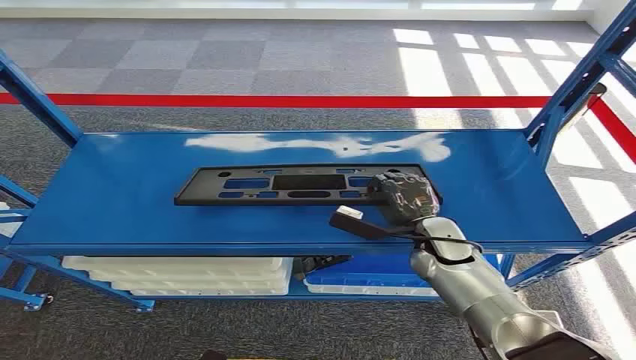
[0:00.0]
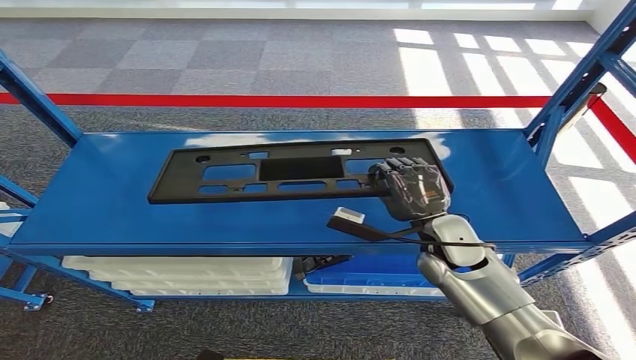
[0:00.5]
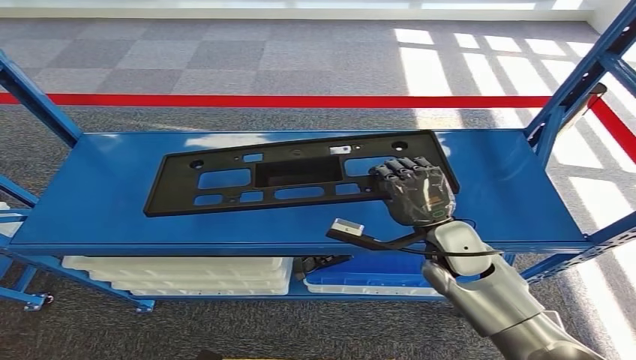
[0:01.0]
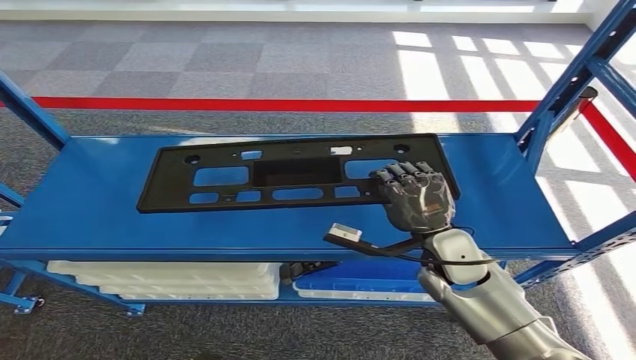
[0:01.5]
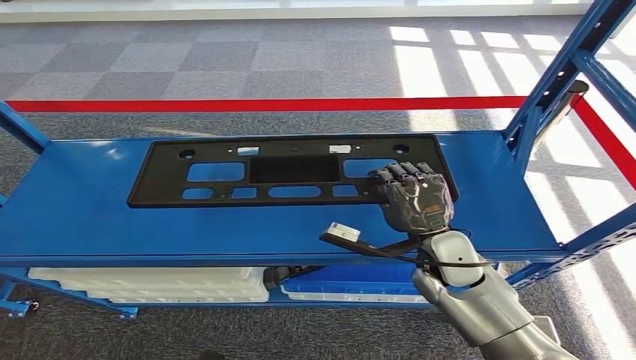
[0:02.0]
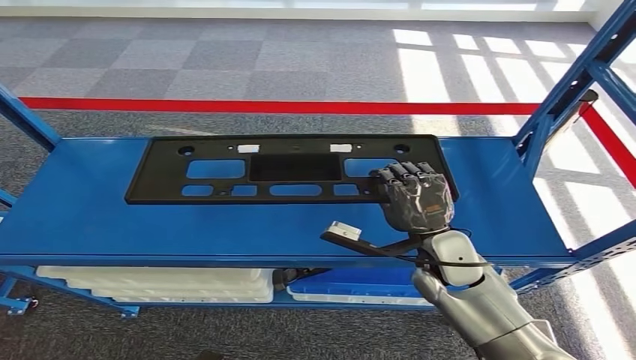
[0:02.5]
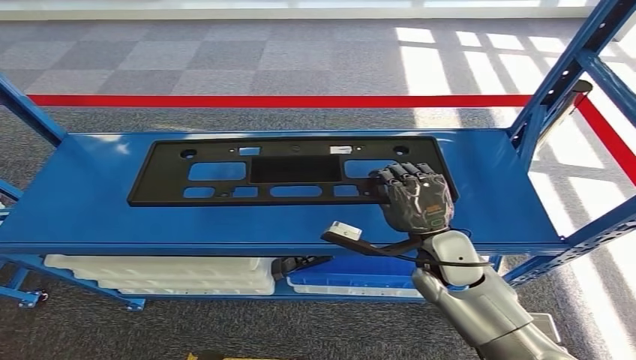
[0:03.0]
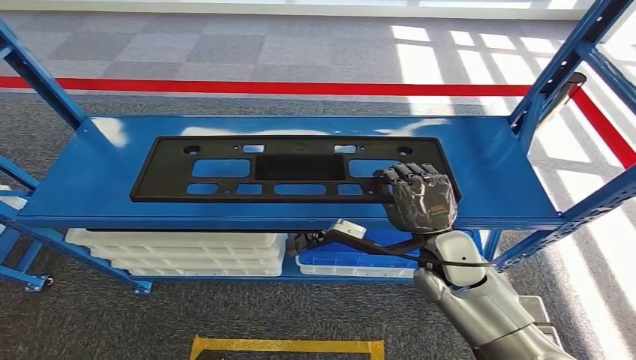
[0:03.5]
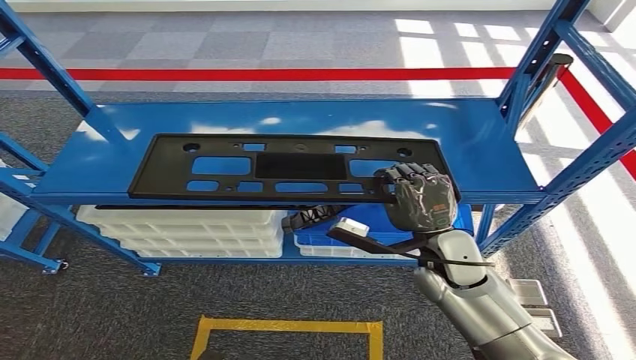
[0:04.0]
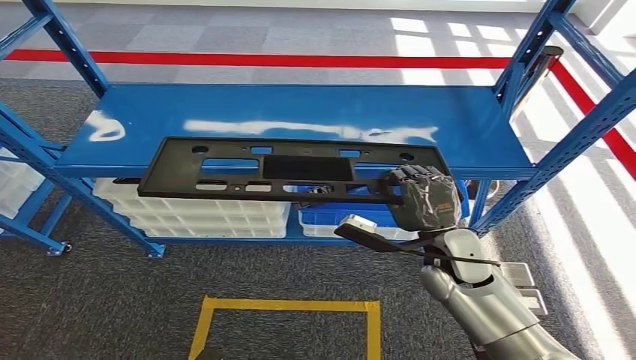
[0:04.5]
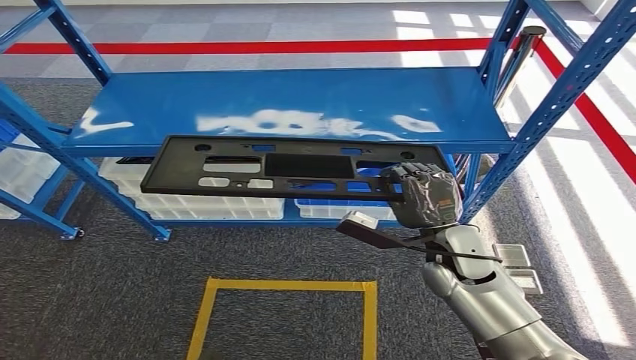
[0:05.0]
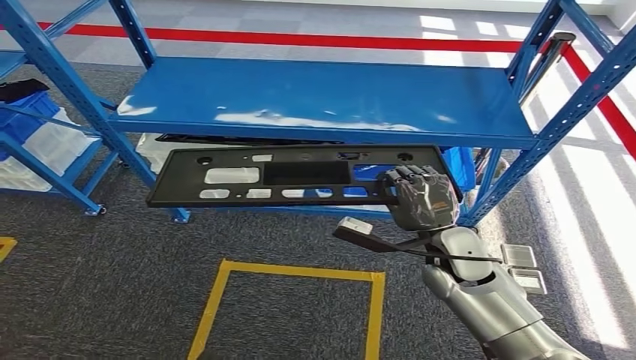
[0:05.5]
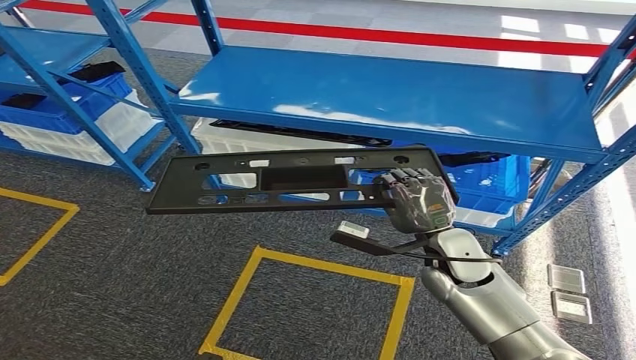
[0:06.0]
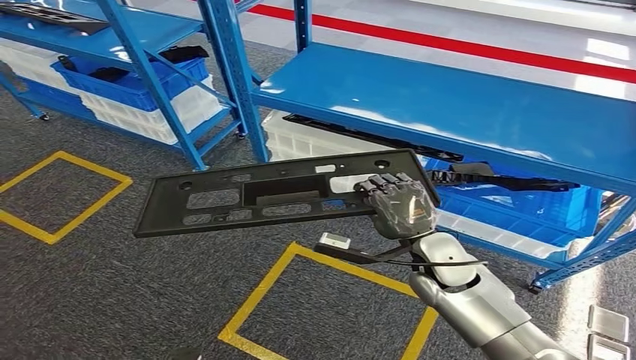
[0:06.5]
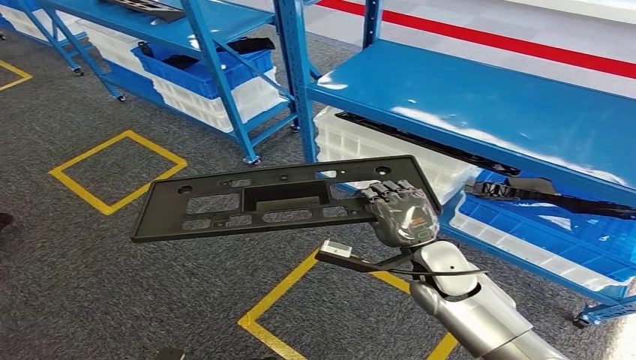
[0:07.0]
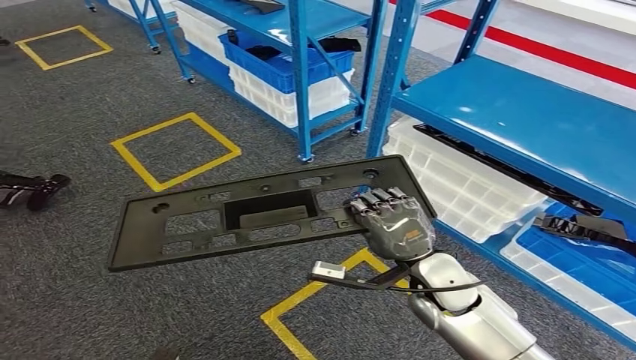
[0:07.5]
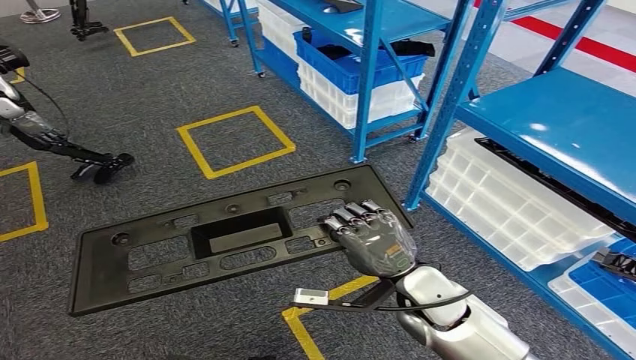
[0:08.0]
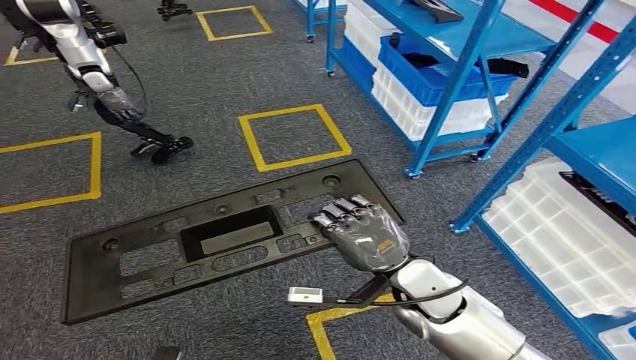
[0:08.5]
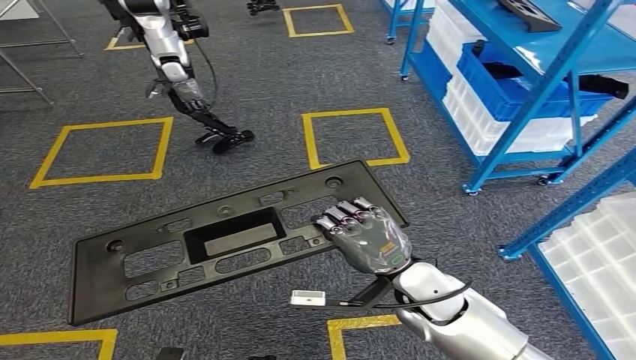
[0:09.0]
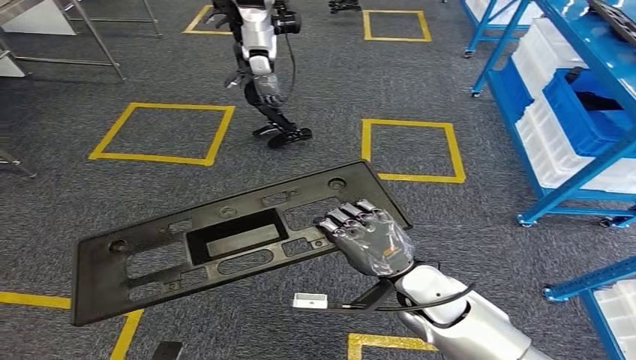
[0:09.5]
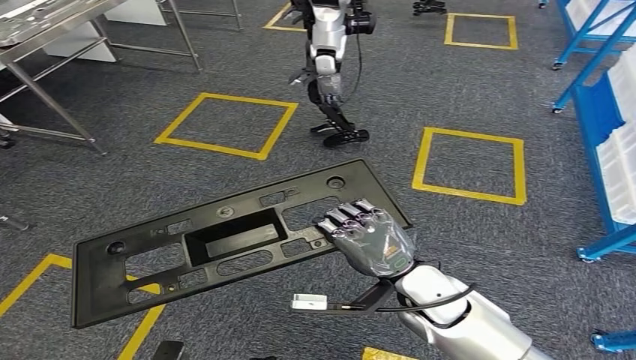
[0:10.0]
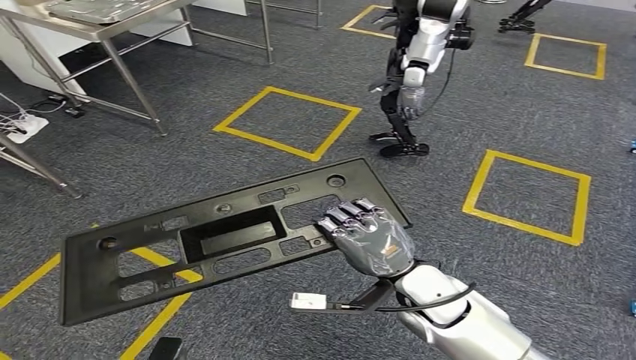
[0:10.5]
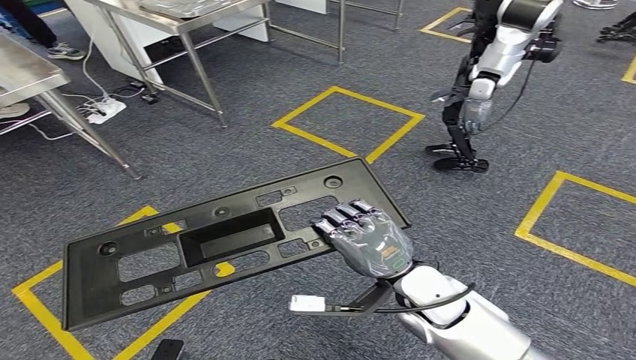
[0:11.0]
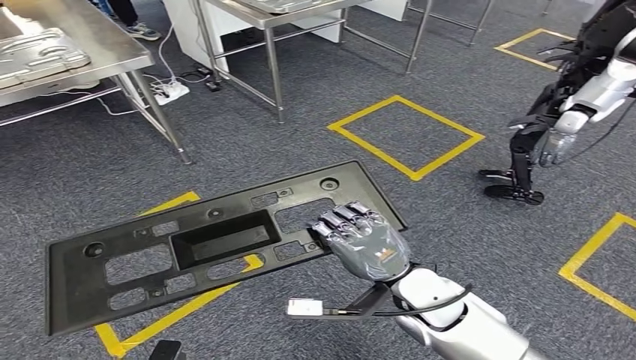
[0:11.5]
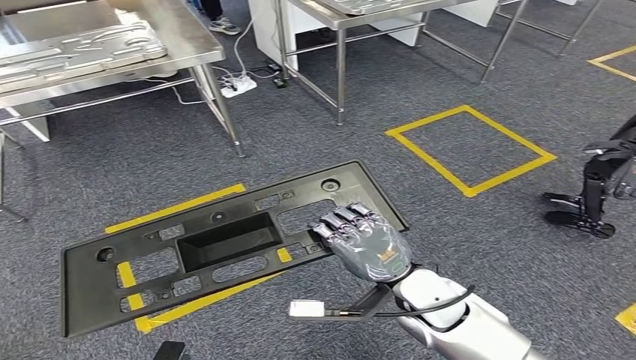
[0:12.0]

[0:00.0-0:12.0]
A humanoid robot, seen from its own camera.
Step, 0:00.0 to 0:01.0: Pick up the small component from the shelf.

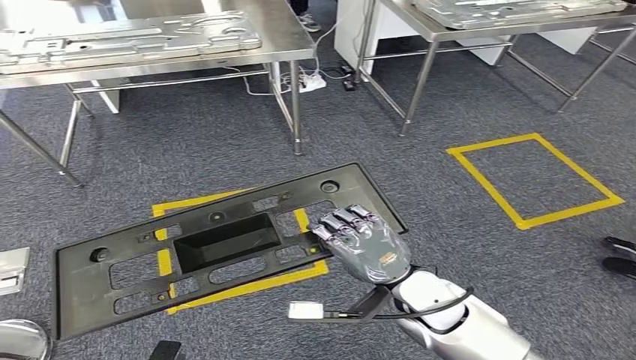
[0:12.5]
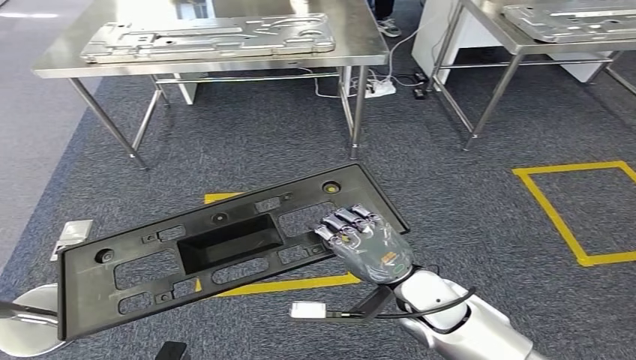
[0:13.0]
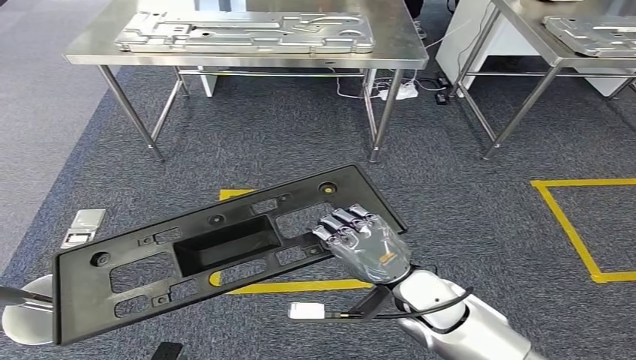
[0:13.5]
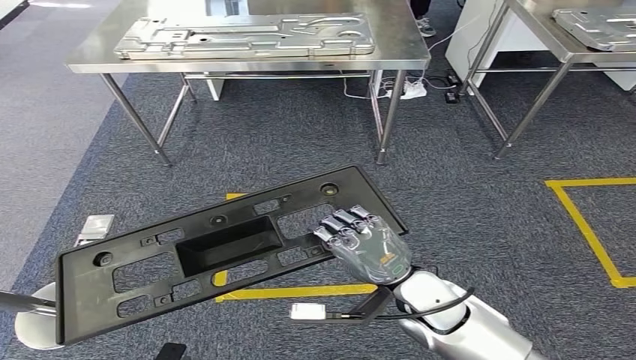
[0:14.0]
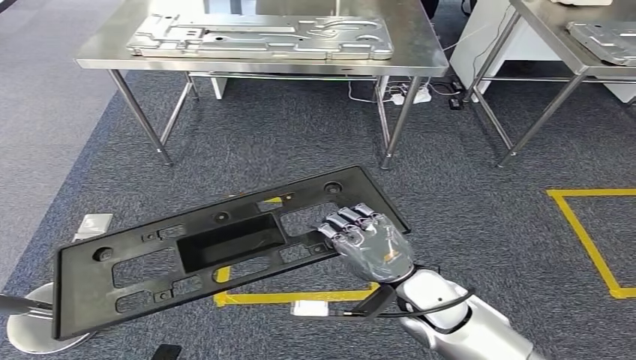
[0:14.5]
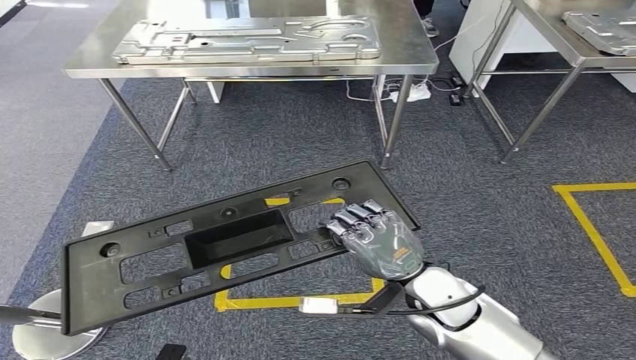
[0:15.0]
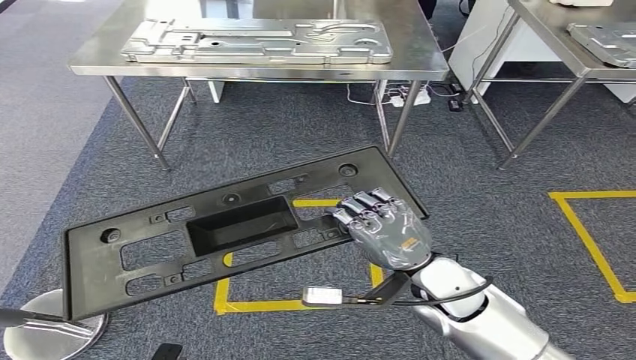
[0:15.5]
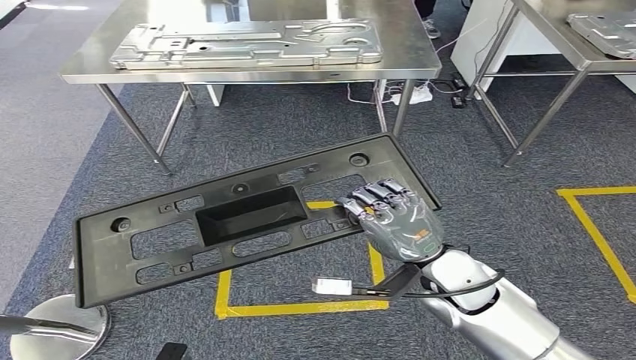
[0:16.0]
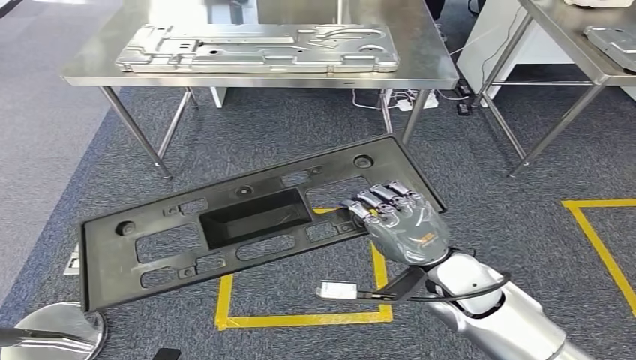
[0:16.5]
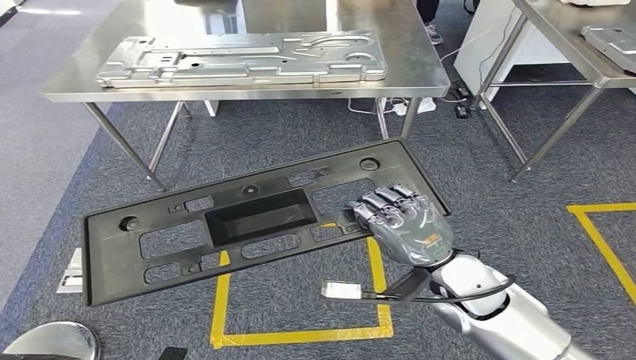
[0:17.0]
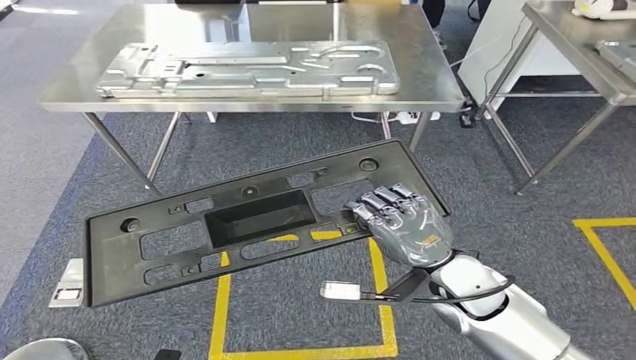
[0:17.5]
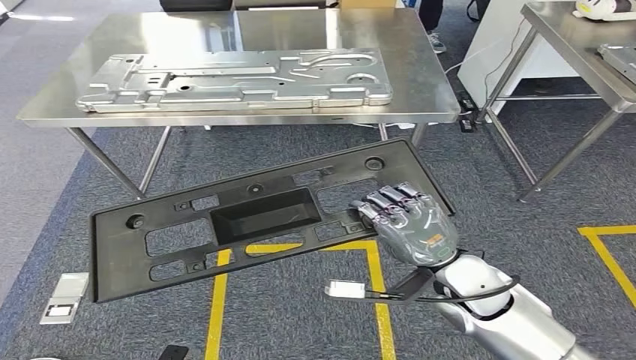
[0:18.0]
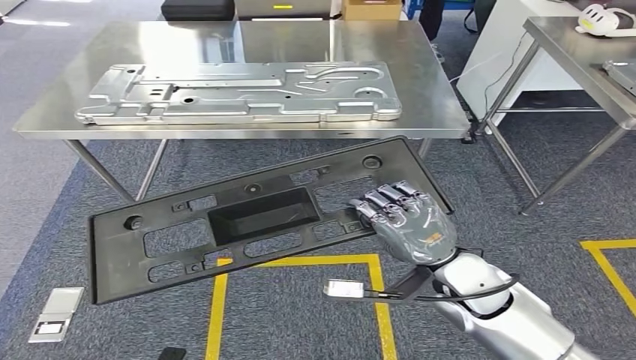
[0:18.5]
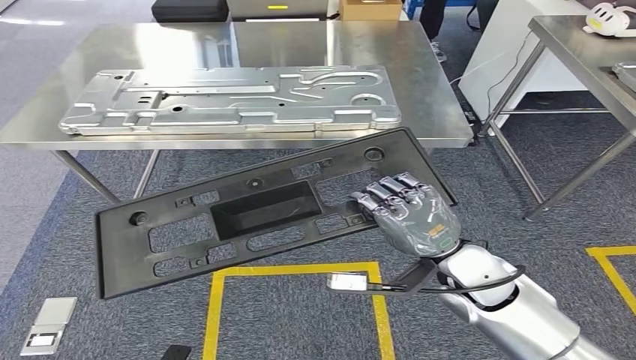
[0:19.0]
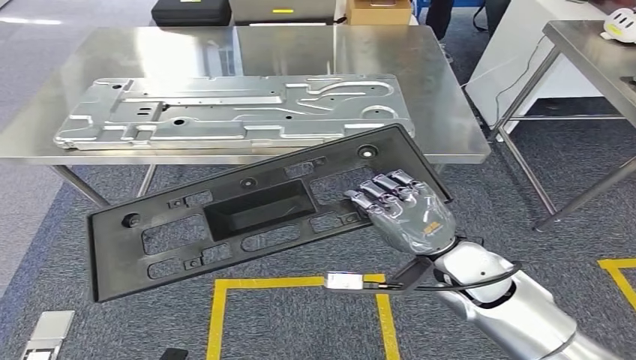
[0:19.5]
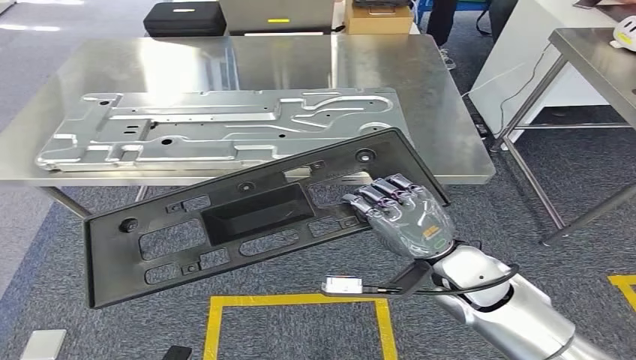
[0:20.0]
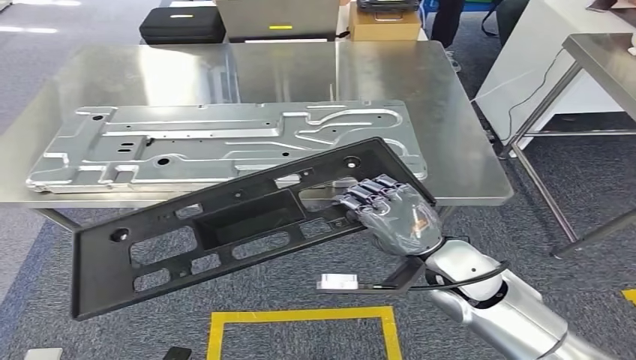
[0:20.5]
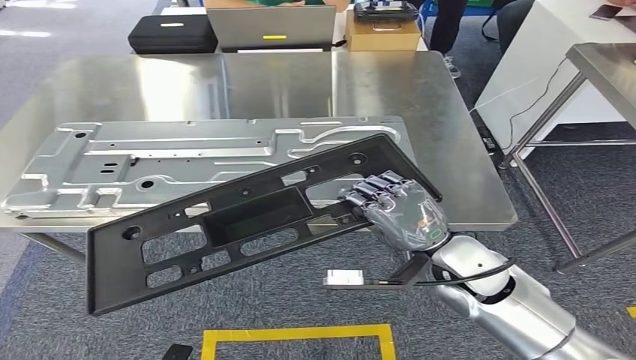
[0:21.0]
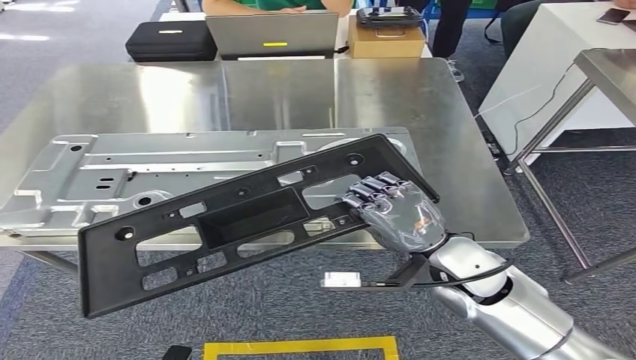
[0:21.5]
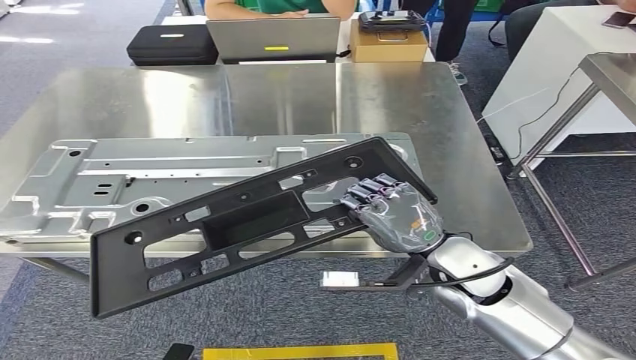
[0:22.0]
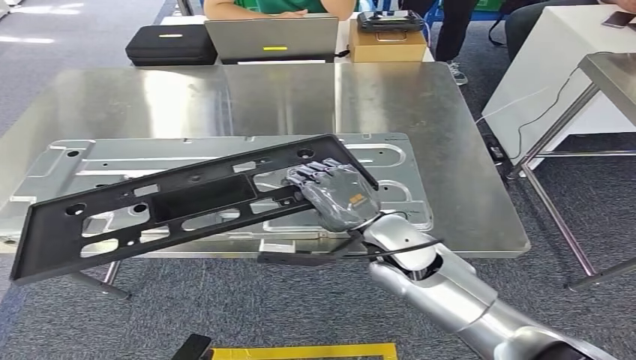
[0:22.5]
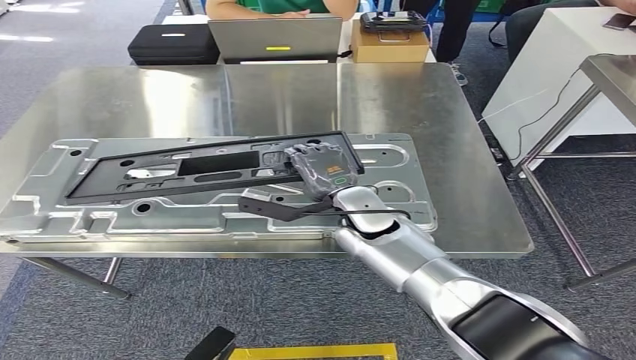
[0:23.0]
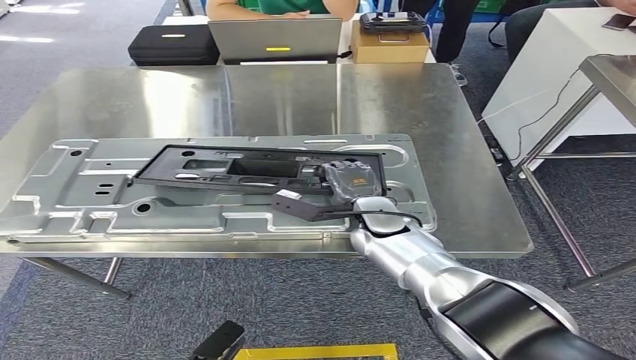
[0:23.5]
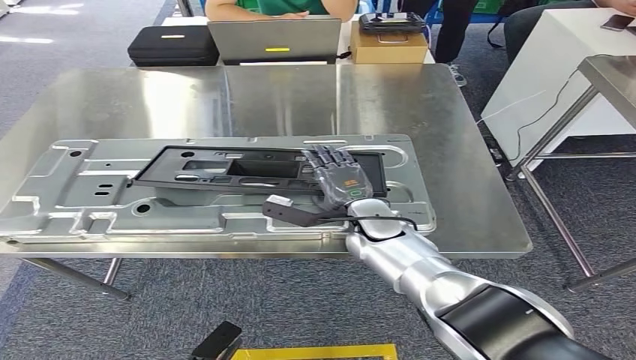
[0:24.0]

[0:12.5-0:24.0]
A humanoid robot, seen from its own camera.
Step, 0:12.5 to 0:21.5: Bring the small component to the front of the workbench.
